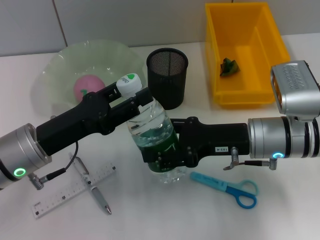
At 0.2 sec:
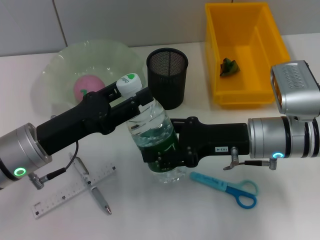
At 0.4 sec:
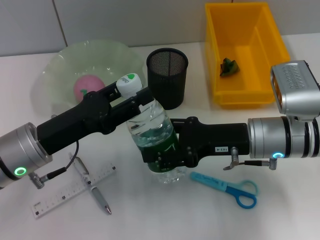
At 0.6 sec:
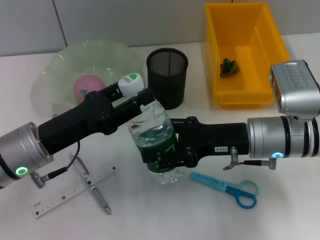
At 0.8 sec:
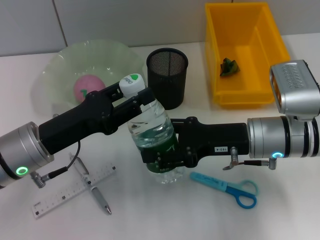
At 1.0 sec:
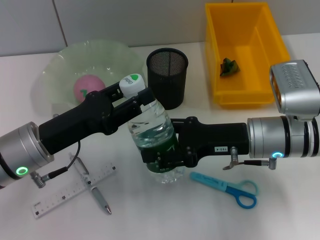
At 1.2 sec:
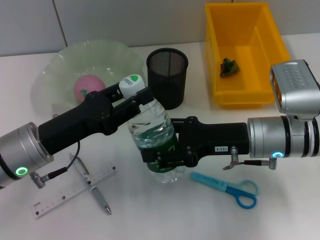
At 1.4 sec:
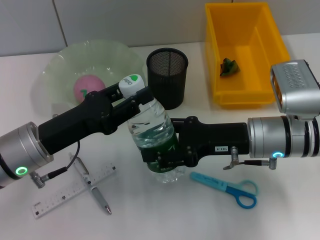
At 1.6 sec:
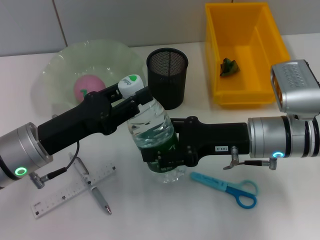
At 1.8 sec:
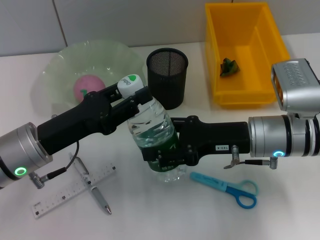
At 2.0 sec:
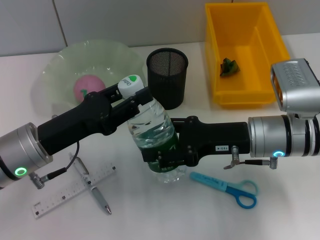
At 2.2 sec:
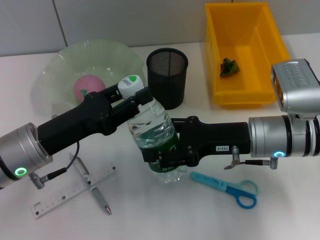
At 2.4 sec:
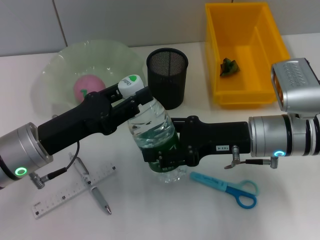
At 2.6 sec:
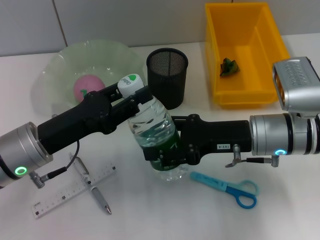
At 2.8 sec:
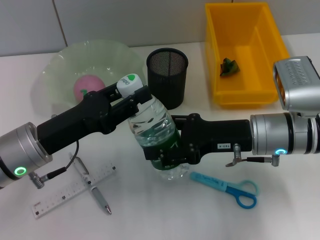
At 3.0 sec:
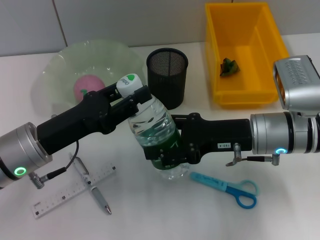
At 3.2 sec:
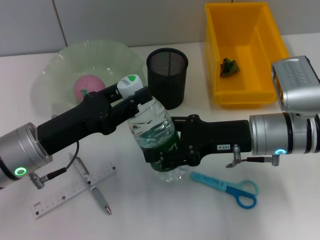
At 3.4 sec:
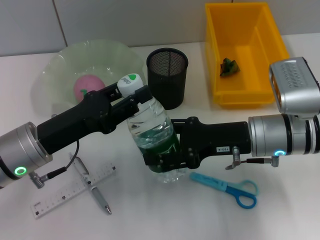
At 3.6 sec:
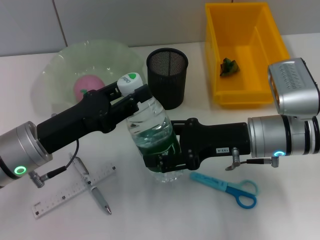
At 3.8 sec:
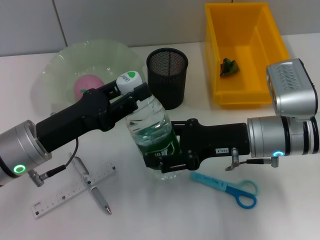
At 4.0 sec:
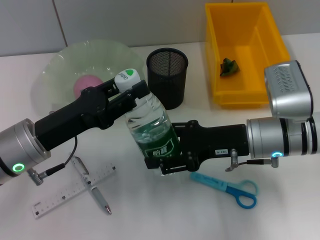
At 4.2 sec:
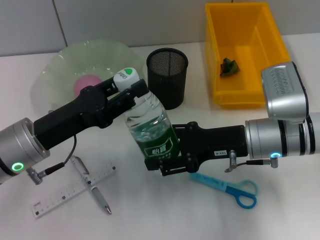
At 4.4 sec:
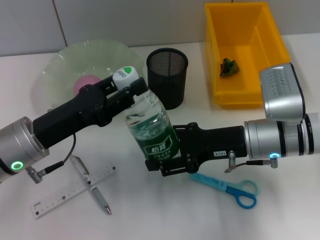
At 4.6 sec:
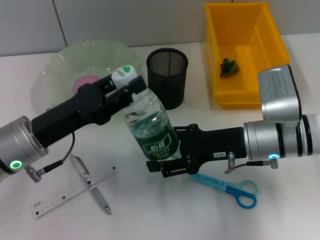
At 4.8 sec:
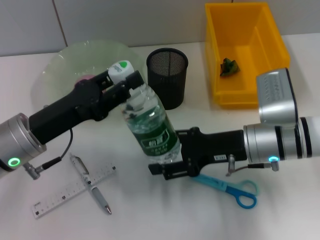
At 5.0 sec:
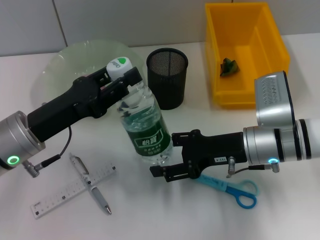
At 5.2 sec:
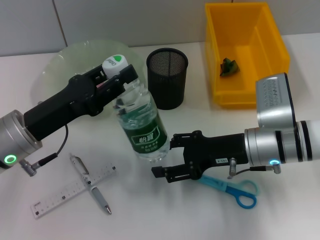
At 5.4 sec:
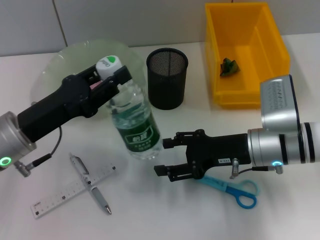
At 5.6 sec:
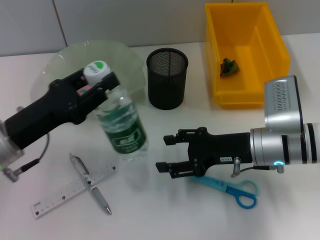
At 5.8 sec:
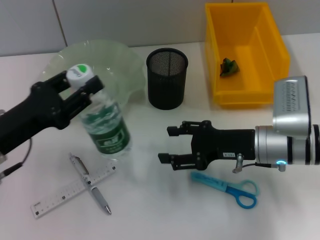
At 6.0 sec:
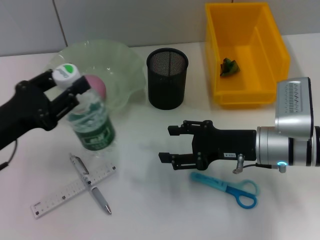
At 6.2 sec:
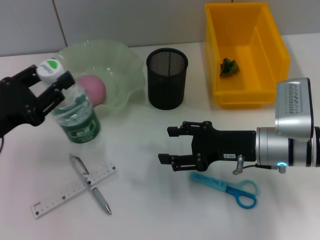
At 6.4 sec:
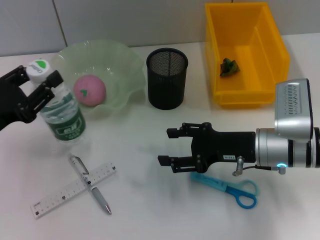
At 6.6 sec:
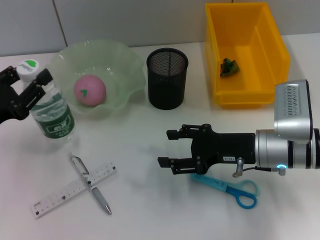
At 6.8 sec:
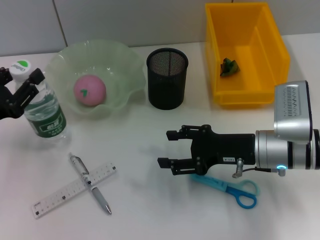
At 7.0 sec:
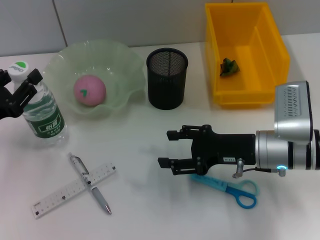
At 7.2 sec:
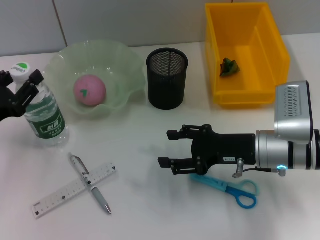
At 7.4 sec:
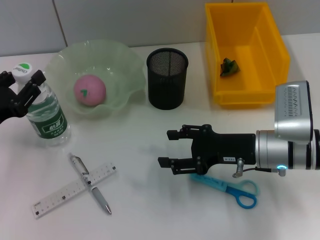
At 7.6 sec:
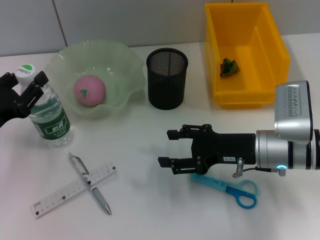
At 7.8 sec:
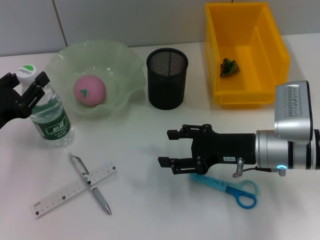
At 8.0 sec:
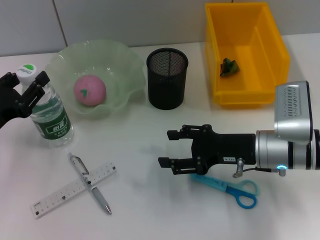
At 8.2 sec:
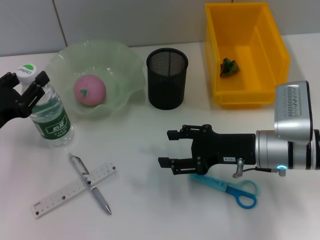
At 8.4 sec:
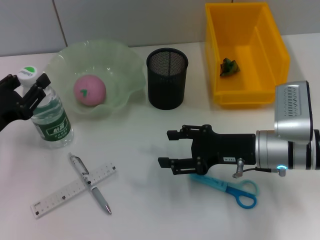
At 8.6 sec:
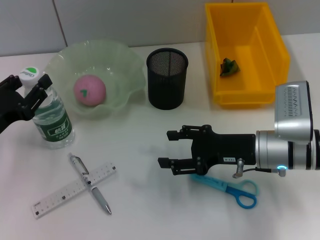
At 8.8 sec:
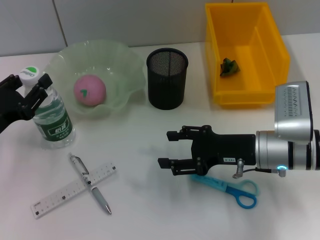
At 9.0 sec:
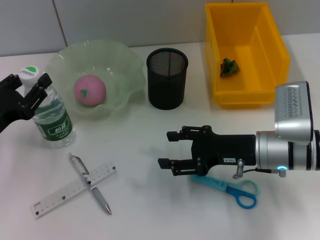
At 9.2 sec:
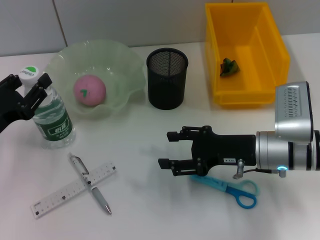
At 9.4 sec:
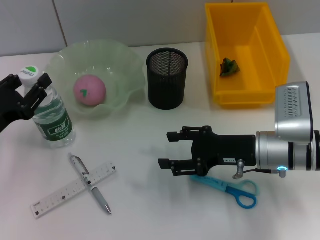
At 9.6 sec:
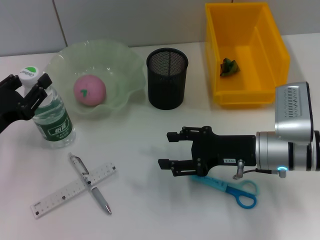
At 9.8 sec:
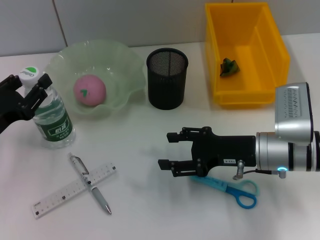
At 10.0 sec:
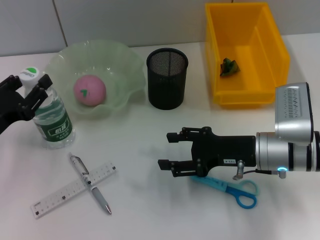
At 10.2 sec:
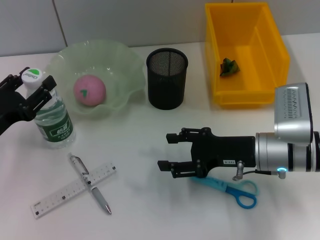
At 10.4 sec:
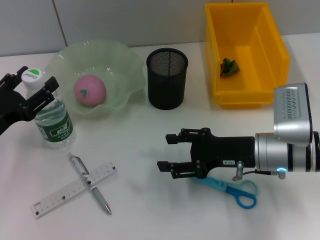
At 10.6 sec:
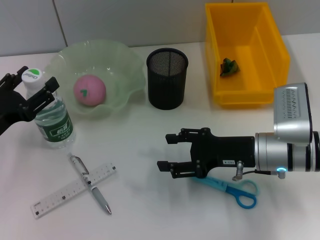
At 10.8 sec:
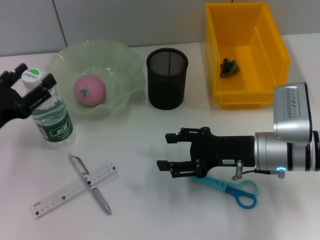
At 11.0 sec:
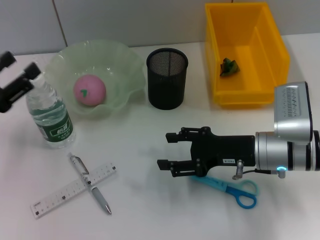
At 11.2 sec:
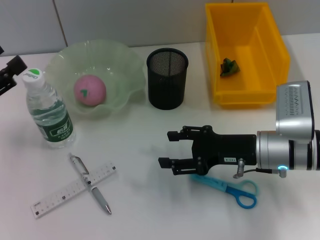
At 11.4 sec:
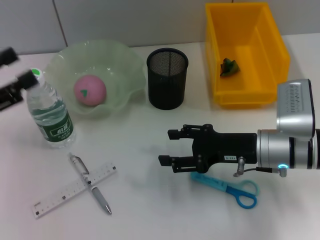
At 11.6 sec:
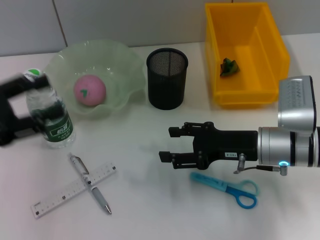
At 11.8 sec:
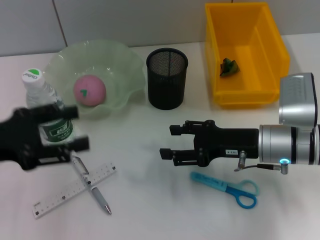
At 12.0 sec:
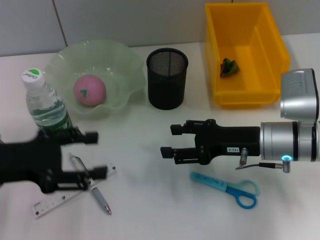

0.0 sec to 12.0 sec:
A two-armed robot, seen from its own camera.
Step, 0.0 sec to 5.4 sec: Pass the water bottle from the right hand to the left hand.
Step, 5.8 sec to 10.8 sec: Place the water bottle on the table with the left hand.
0.0 sec to 3.0 sec: Neither gripper changes place.
3.0 sec to 4.4 sec: The grippers stay close to where they were, moving slightly.
4.4 sec to 6.0 sec: The left gripper shifts about 5 cm to the left.
7.6 sec to 10.4 sec: Both grippers stay about where they are.
10.4 sec to 12.0 sec: The left gripper moves upward, some 5 cm.

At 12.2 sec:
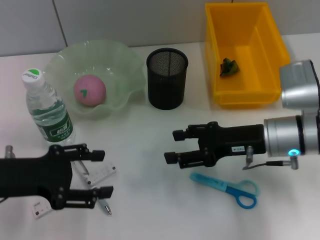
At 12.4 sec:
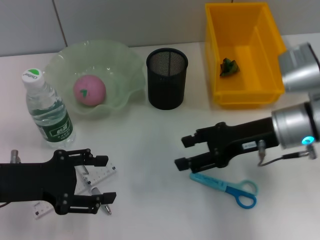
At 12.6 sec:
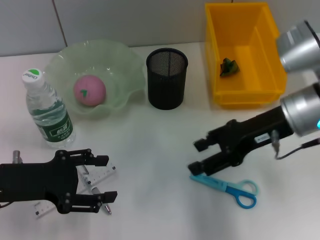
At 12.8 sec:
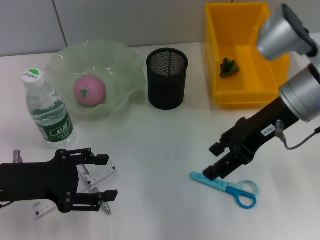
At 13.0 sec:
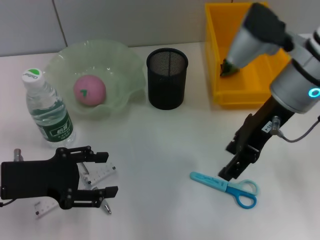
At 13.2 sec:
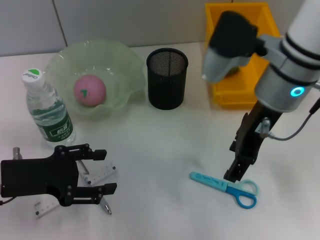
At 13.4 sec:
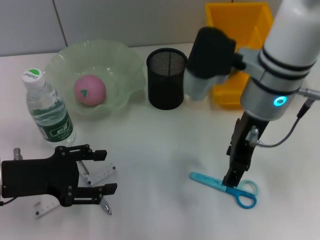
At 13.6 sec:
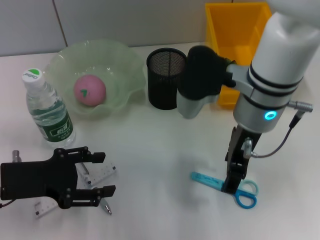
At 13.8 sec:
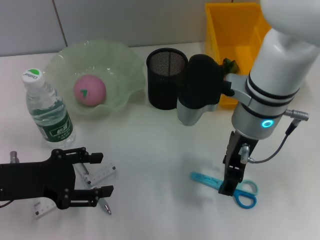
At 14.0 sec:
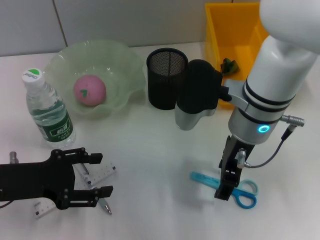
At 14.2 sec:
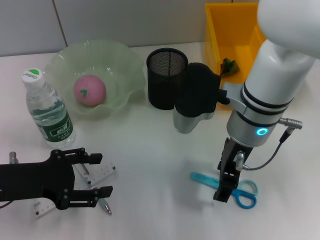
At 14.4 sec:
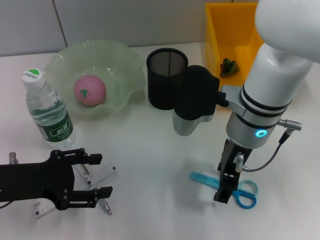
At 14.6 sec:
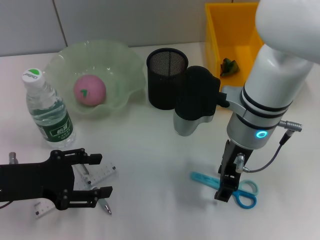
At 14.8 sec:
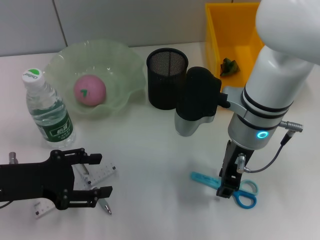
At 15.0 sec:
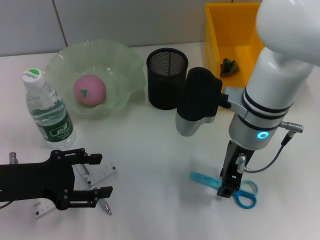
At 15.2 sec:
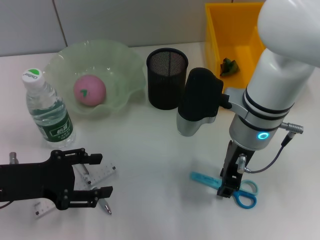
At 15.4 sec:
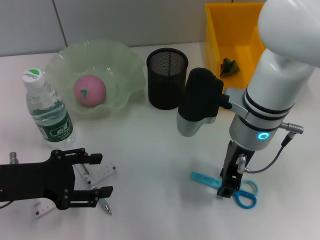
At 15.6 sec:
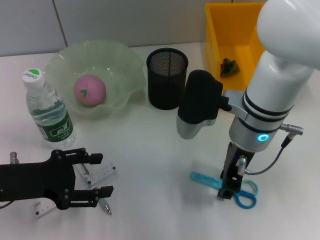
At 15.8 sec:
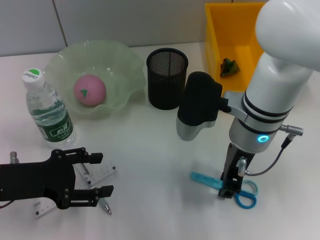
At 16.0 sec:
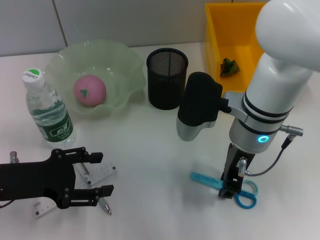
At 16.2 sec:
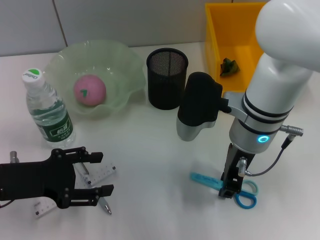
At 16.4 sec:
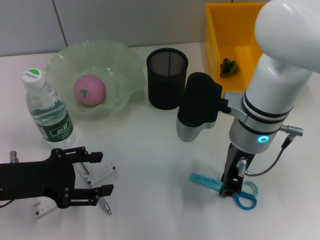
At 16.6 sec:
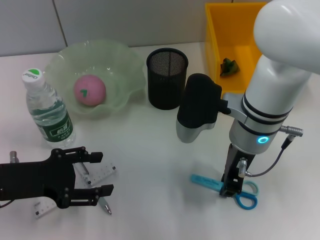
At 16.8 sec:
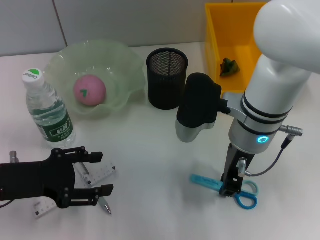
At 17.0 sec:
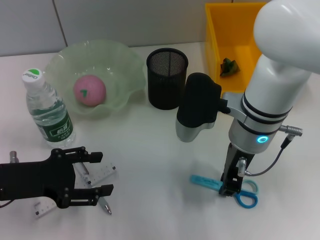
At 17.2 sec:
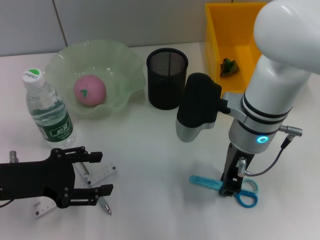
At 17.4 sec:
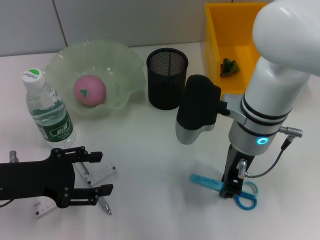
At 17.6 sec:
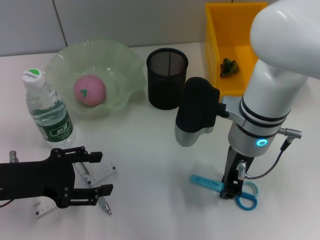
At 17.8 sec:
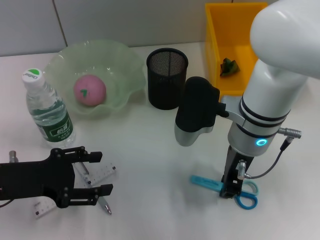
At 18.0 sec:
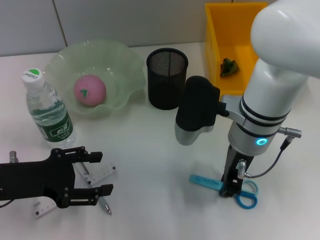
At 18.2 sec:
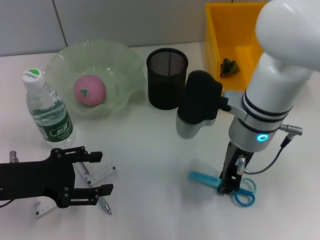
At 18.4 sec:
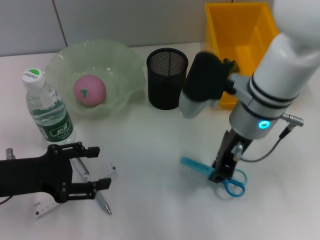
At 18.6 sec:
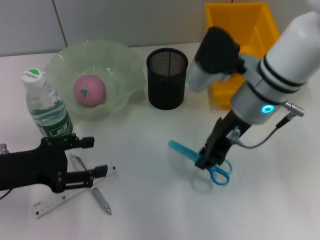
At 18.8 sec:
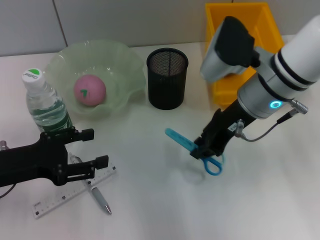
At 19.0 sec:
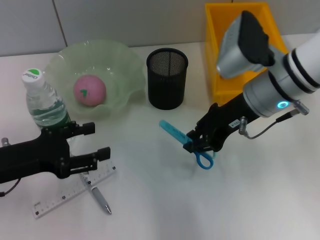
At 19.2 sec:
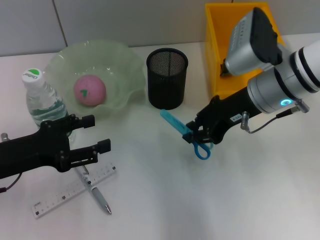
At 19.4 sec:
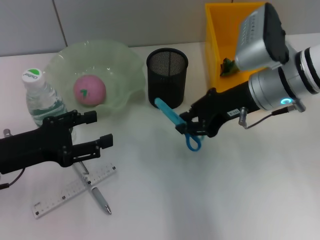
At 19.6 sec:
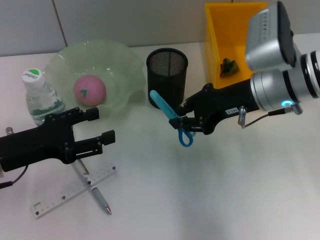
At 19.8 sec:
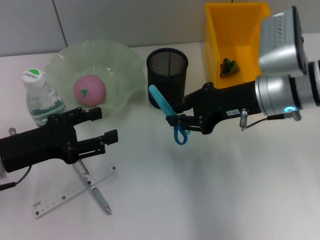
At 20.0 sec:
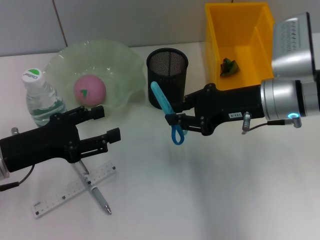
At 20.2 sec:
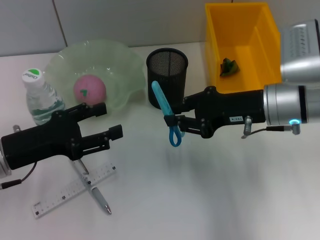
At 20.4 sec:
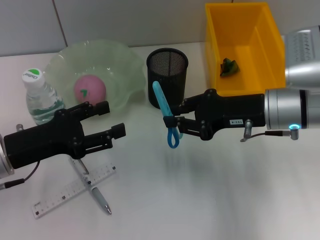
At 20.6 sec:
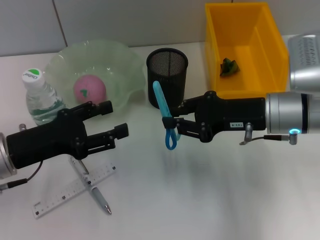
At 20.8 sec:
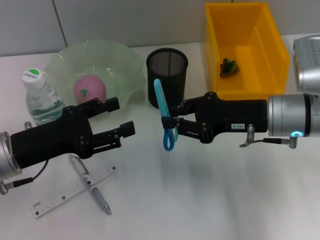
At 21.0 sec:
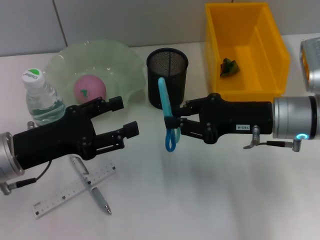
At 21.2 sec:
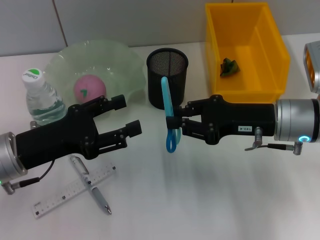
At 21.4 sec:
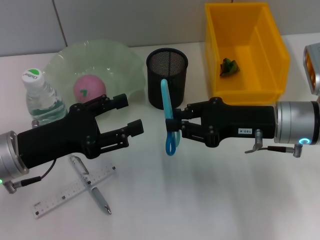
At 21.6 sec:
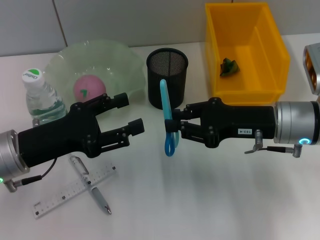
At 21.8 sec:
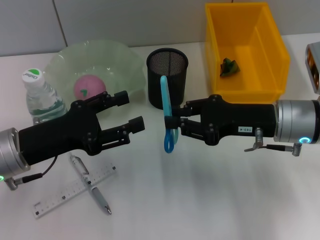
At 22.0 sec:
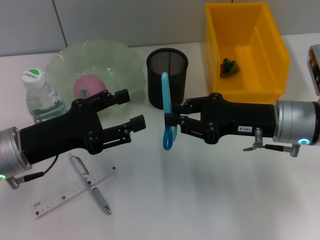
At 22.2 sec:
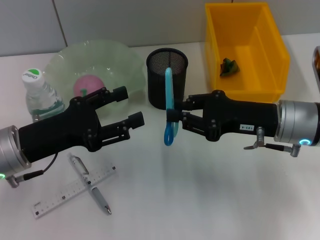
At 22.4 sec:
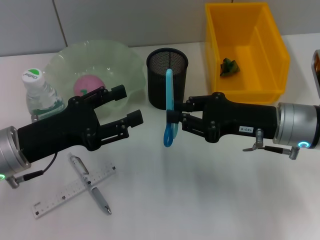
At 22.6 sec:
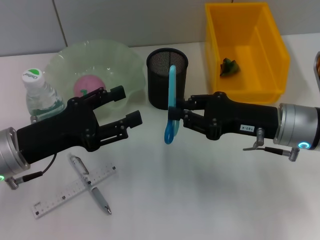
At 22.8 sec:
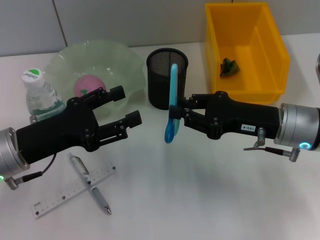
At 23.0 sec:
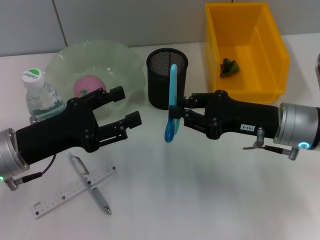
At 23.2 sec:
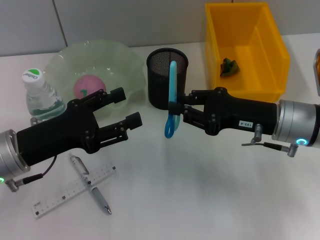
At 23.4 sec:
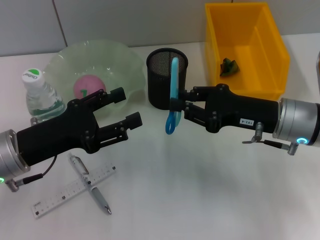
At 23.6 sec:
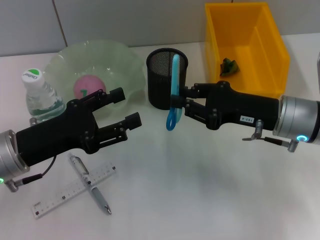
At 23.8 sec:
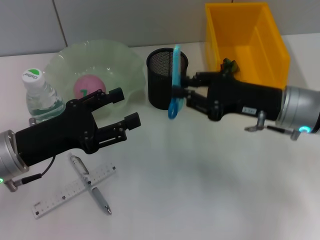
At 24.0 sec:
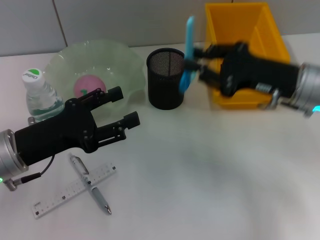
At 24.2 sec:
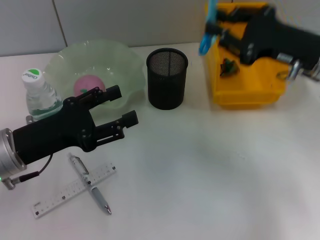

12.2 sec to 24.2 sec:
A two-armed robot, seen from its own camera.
Step, 12.2 sec to 16.4 sec: Grab the blue scissors with the right hand.
12.2 sec to 13.8 sec: The right gripper travels to the left and upward by roughly 10 cm.
13.8 sec to 15.2 sec: The right gripper closes up.
15.2 sec to 18.2 sec: Neither gripper changes place.
18.2 sec to 19.8 sec: The right gripper is displaced to the right by roughly 5 cm.
19.8 sec to 21.2 sec: The right gripper shifts by some 5 cm.
21.2 sec to 22.6 sec: The grippers stay close to where they were, moving slightly.
22.6 sec to 24.2 sec: The right gripper goes approximately 5 cm upward.
